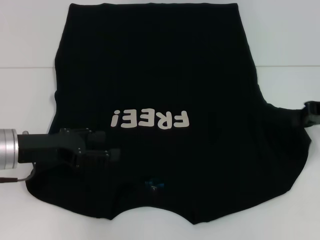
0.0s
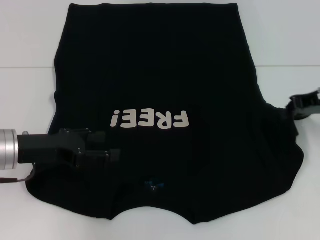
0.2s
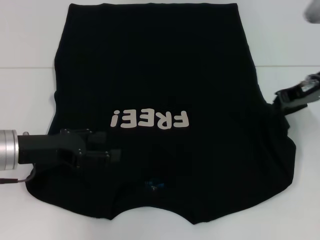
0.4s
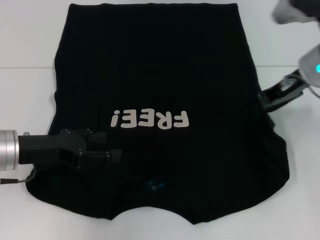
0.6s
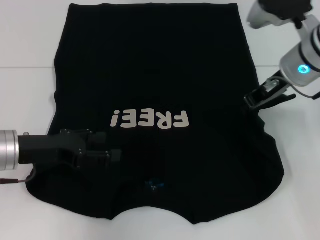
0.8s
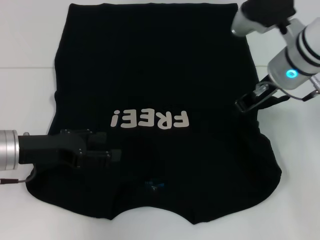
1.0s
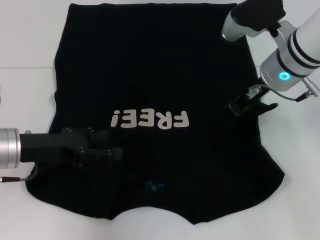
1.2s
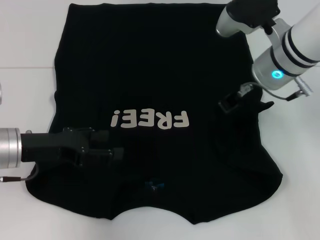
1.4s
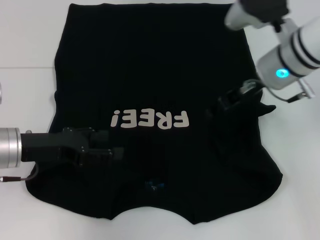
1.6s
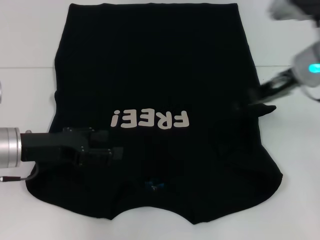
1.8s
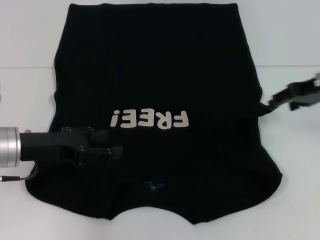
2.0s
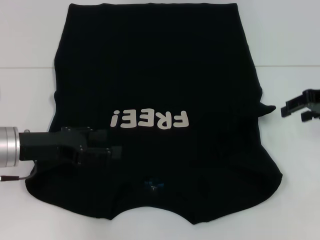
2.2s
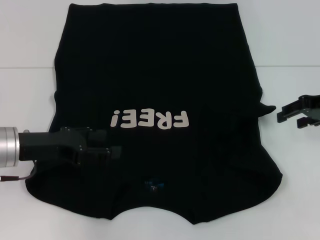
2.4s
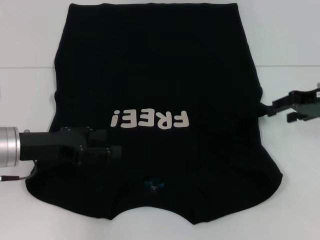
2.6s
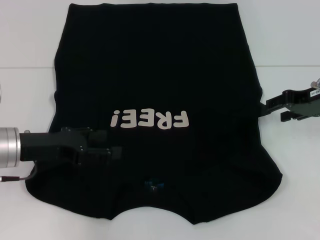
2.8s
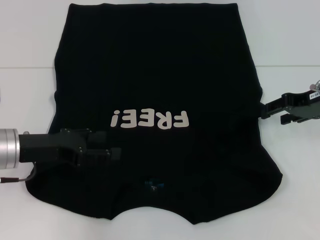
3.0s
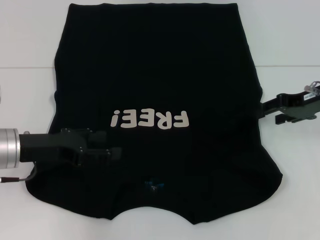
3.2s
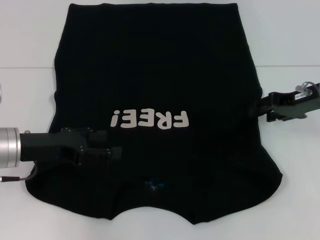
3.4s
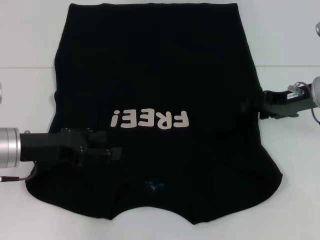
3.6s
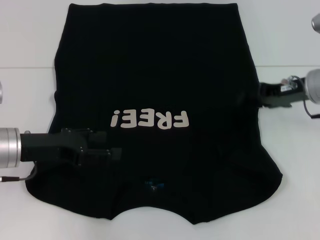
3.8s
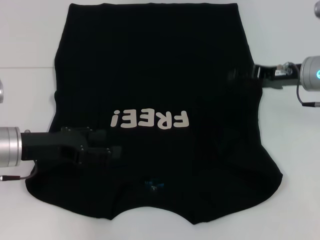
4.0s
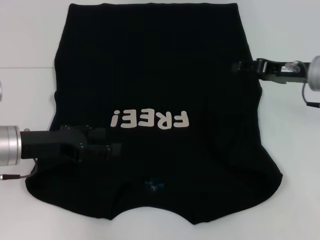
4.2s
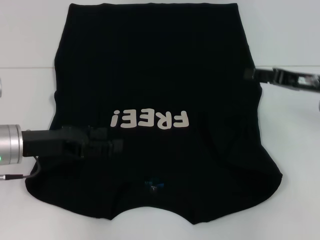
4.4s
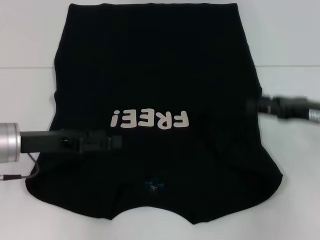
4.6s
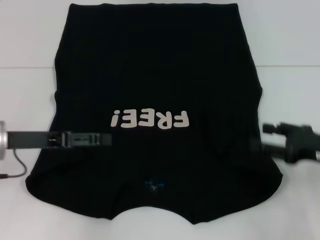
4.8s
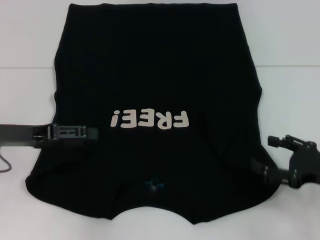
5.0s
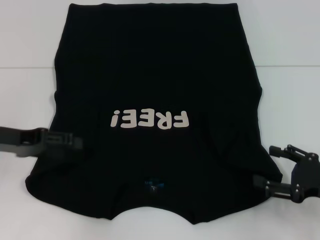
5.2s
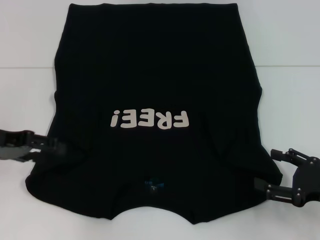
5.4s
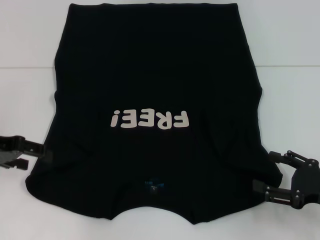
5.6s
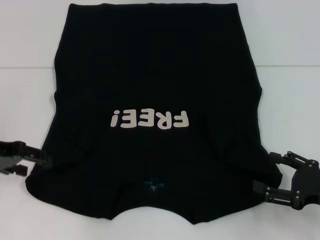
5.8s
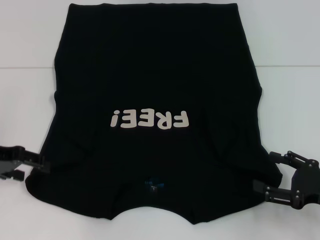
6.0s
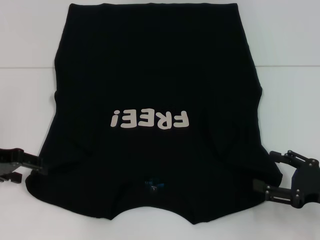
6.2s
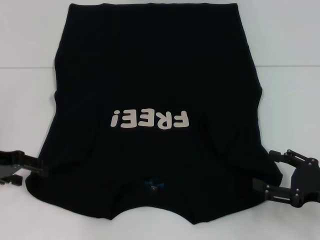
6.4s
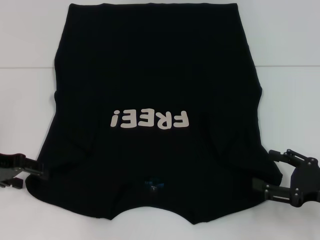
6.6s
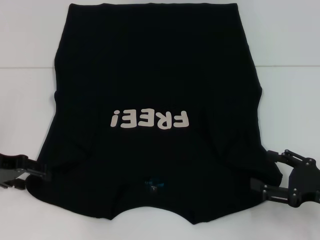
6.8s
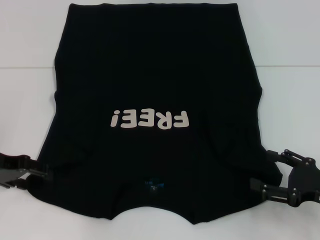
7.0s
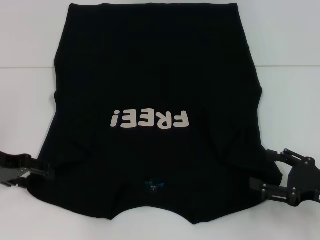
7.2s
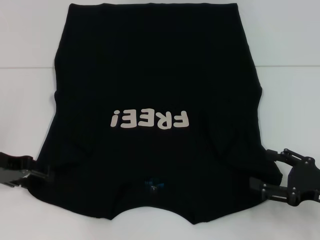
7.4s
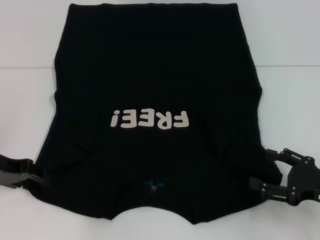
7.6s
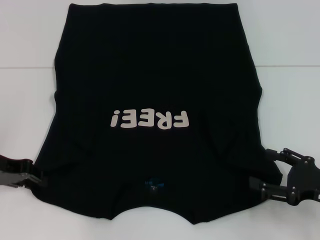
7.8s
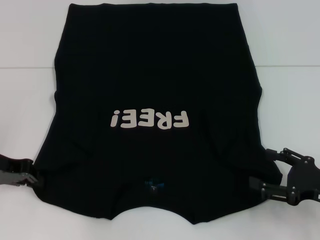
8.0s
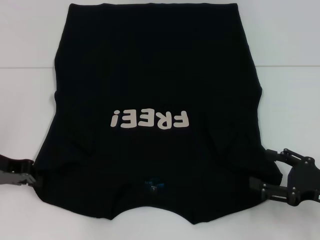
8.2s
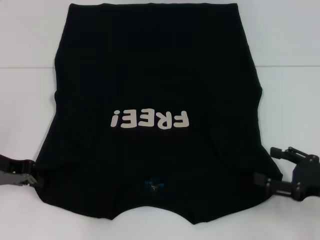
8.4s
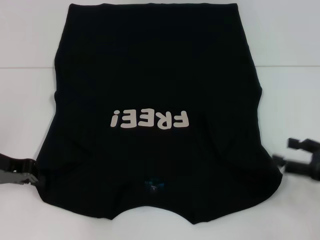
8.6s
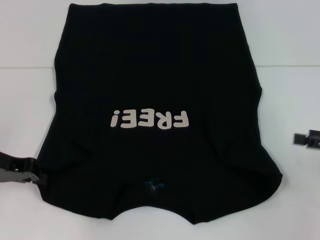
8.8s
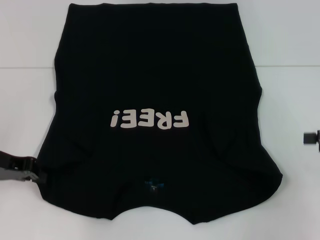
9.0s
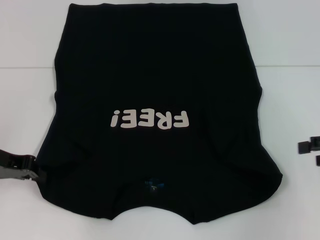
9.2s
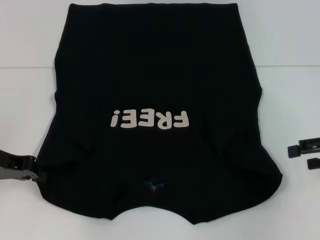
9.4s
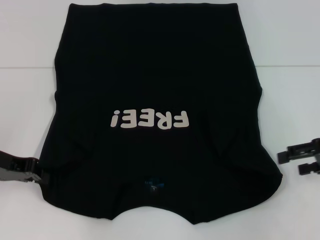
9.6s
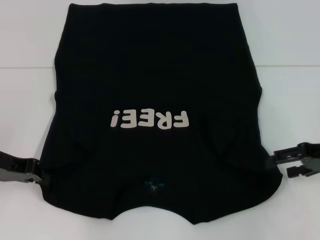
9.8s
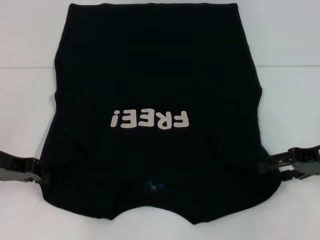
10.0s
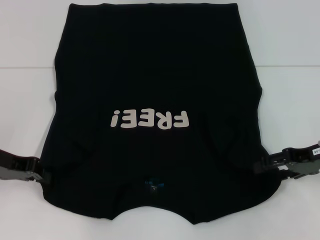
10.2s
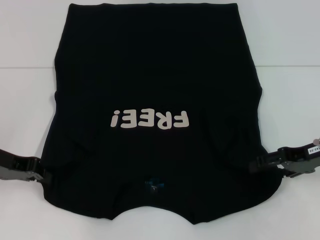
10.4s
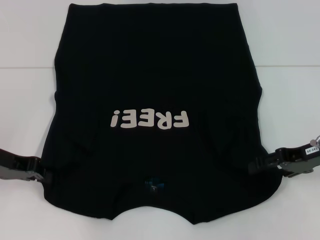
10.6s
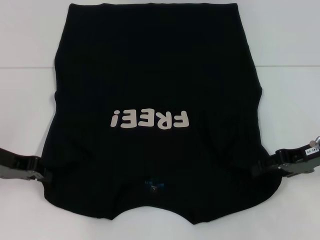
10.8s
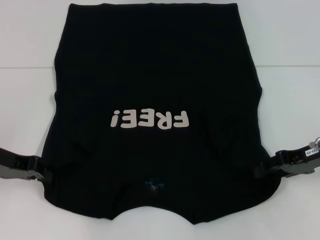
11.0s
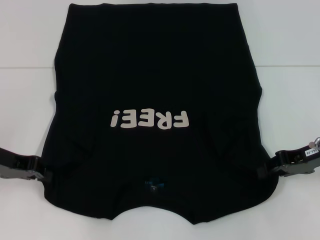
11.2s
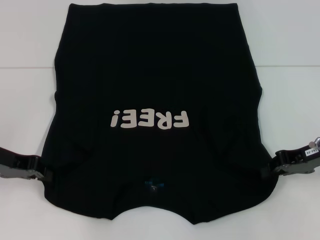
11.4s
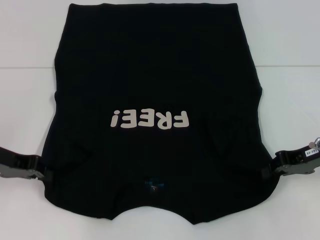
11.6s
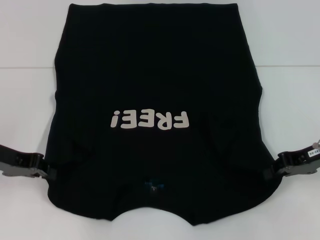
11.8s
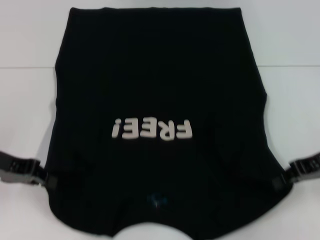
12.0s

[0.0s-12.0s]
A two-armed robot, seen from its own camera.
Step, 0.0s to 4.6s: Fold the bottom right sleeve with your right hand.
Step, 4.8s to 8.4s: Grab the bottom left corner with your left hand.
Step, 8.6s to 11.8s: Grab the bottom right corner with your right hand.
0.0s to 1.6s: The right gripper goes approximately 15 cm to the left, and opens its fingers.
1.6s to 3.0s: The right gripper moves to the right, approximately 10 cm.
4.4s to 6.0s: The right gripper heads backward and downward, covering some 15 cm. The left gripper goes approximately 5 cm to the left.
6.0s to 7.6s: The grippers move only a little.
7.6s to 9.0s: The right gripper is displaced upward, to the right and forward by roughly 15 cm. Meanwhile the left gripper closes its fingers.
9.0s to 10.4s: The right gripper is displaced to the left by roughly 10 cm.
10.4s to 12.0s: The right gripper closes up.

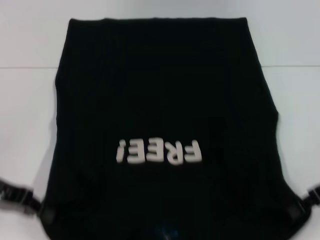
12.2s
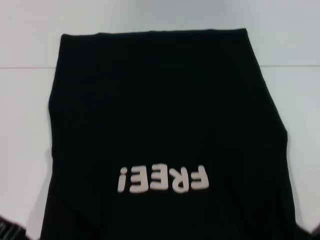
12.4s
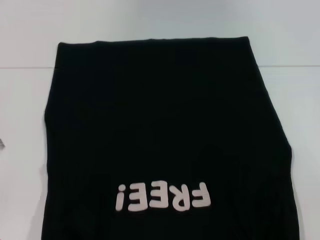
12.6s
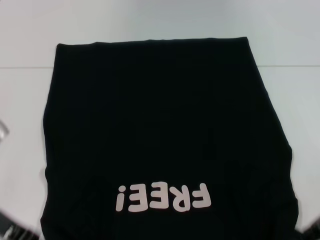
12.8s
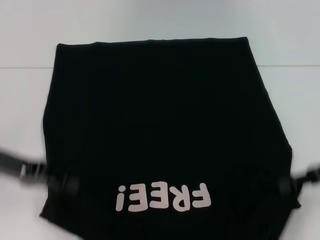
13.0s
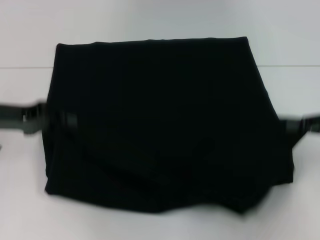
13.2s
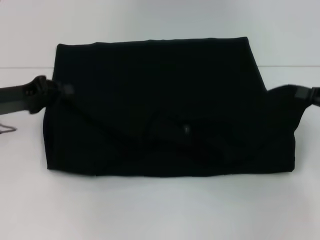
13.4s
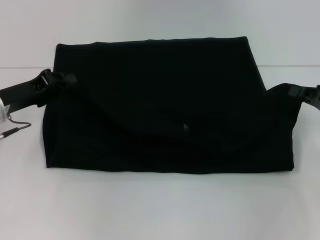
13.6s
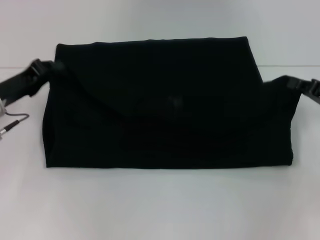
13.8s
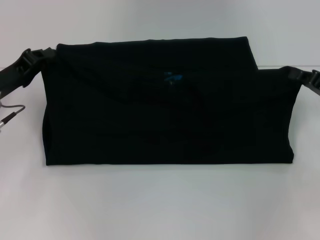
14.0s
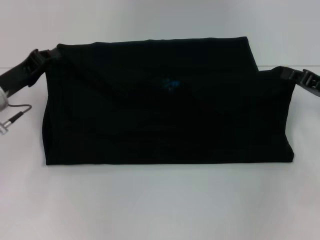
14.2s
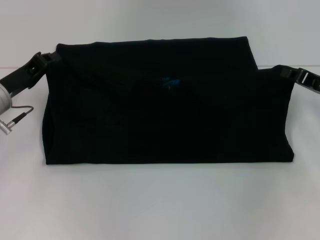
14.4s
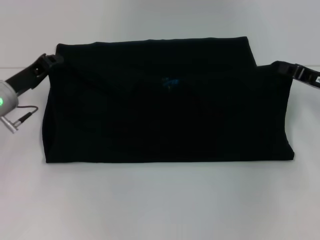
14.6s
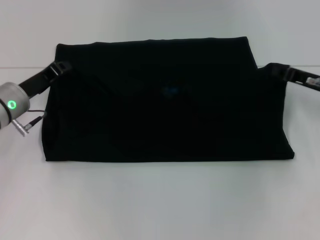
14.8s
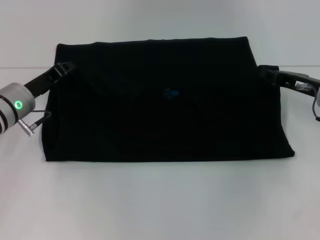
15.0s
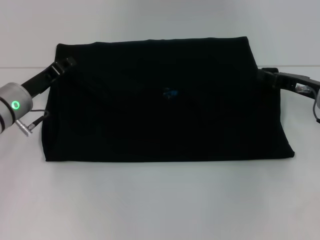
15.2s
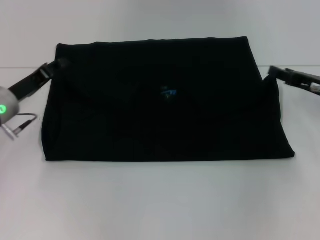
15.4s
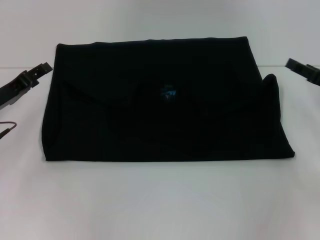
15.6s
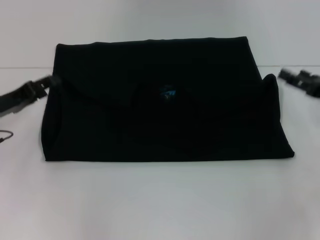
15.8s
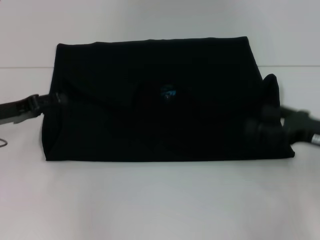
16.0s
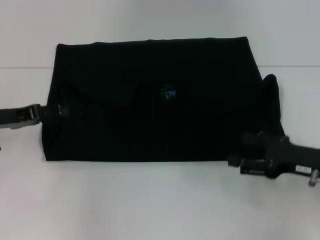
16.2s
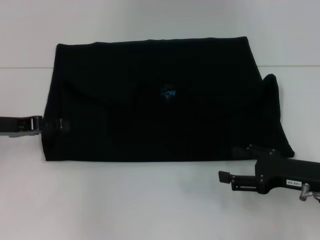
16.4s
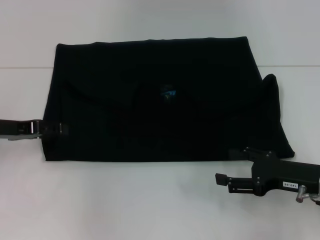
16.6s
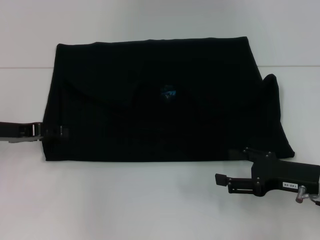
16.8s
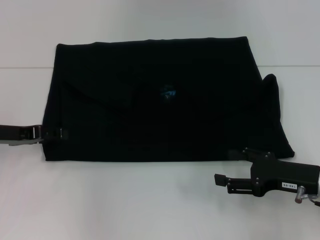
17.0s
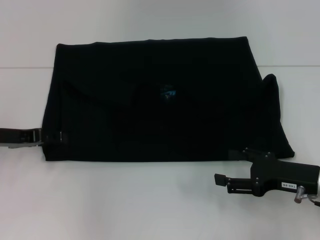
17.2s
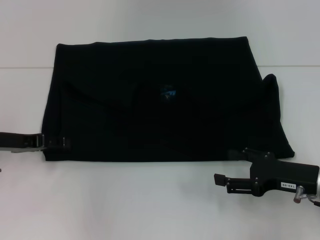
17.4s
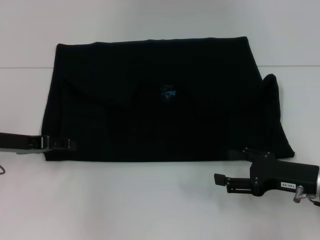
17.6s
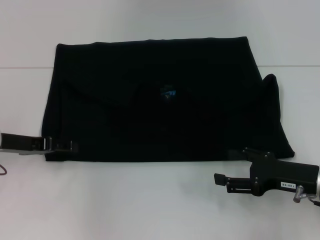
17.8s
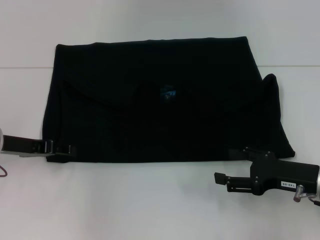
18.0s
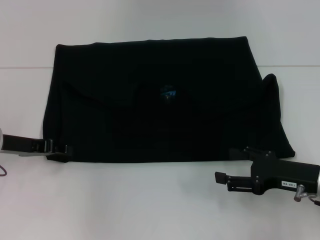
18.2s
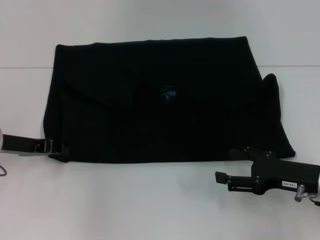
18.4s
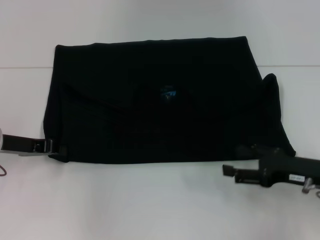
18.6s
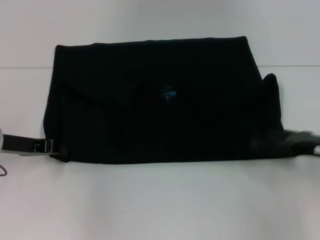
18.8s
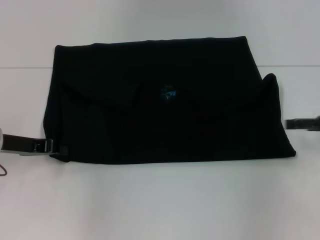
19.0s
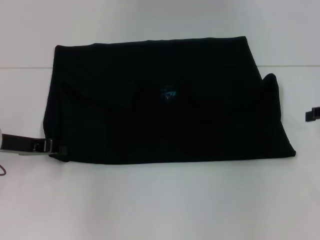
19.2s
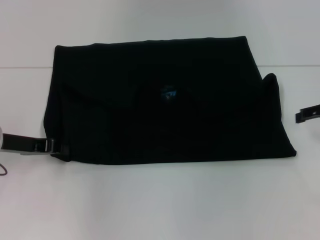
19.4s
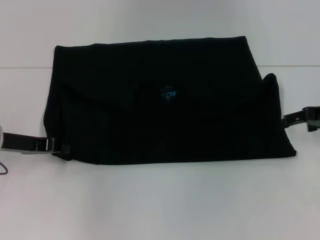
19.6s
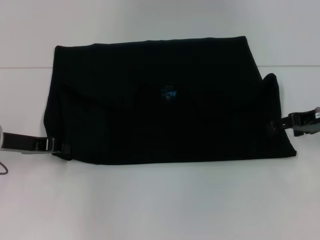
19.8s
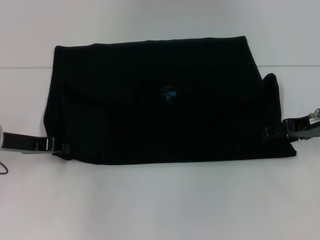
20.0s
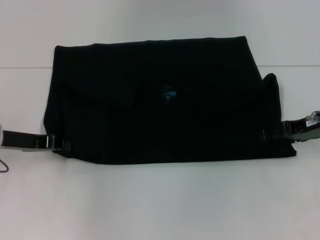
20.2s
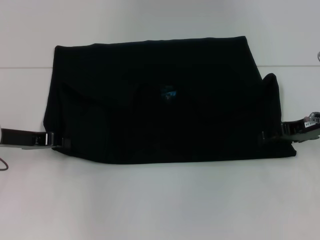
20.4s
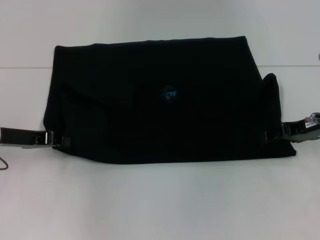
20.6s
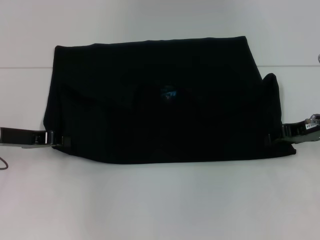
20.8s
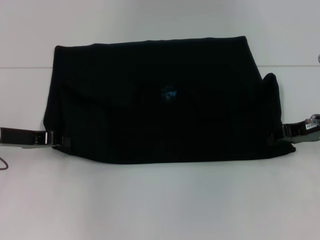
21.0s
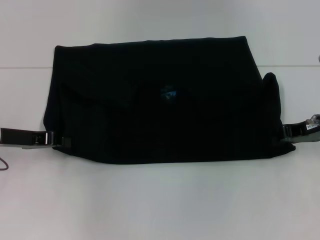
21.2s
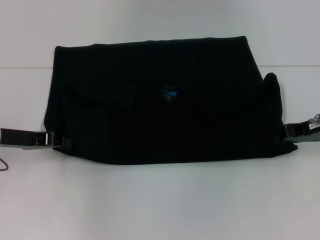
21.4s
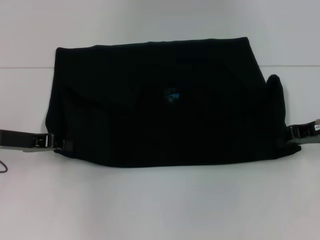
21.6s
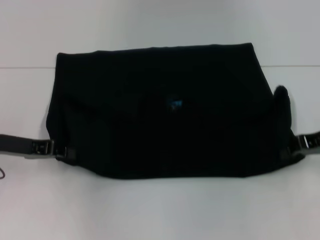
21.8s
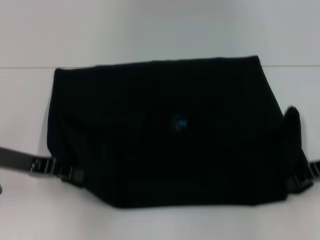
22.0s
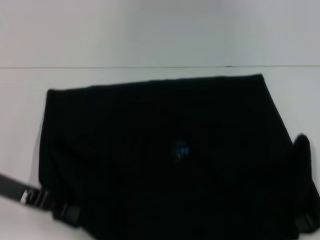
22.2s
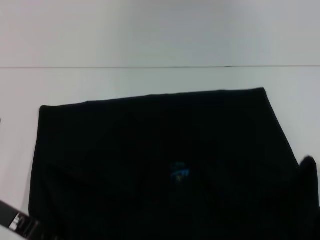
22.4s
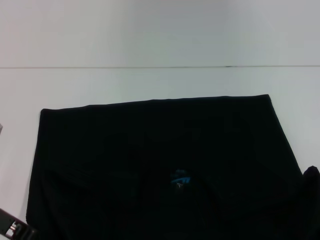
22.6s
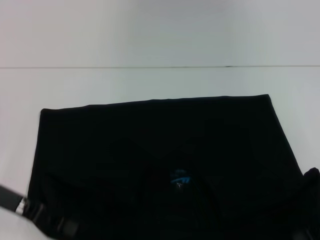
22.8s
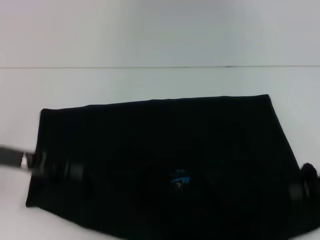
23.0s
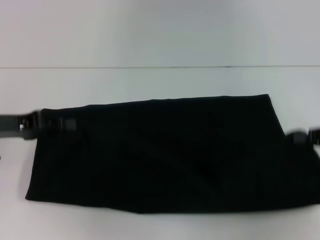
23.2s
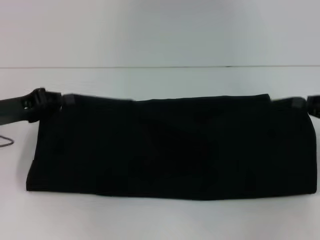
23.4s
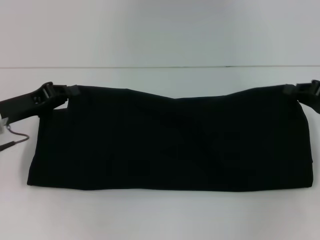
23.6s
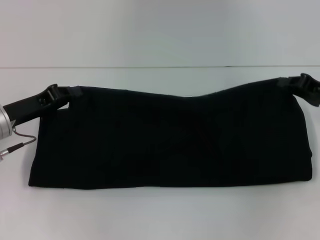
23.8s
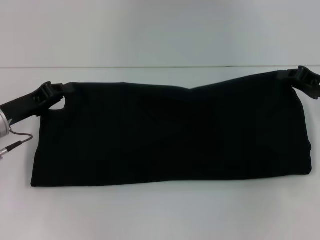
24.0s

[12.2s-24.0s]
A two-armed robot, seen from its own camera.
Step, 12.2s to 15.2s: Fold the clothes with your left hand.
Step, 12.2s to 15.2s: Fold the clothes with your right hand.
Step, 15.4s to 22.6s: Pull the clothes with your left hand.
Step, 15.4s to 22.6s: Pull the clothes with your right hand.
12.2s to 13.6s: The left gripper goes some 5 cm forward; the right gripper moves approximately 5 cm.
13.6s to 15.2s: The left gripper shifts by some 5 cm. The right gripper travels to the left and forward by roughly 10 cm.
15.2s to 16.6s: The left gripper goes approximately 5 cm to the left, and opens up. Meanwhile the right gripper moves backward, about 10 cm, and opens.
16.6s to 18.2s: The grippers make only small movements.
18.2s to 19.6s: The left gripper closes its fingers. The right gripper travels forward, upward and to the right by roughly 15 cm.
19.6s to 21.0s: The right gripper closes up.
21.0s to 22.6s: The right gripper travels backward by approximately 10 cm, and closes its fingers. Meanwhile the left gripper heads backward, covering approximately 5 cm.
22.6s to 24.0s: The left gripper heads forward, covering approximately 5 cm; the right gripper goes about 10 cm forward.
